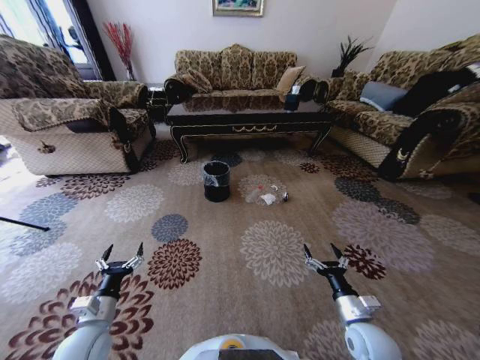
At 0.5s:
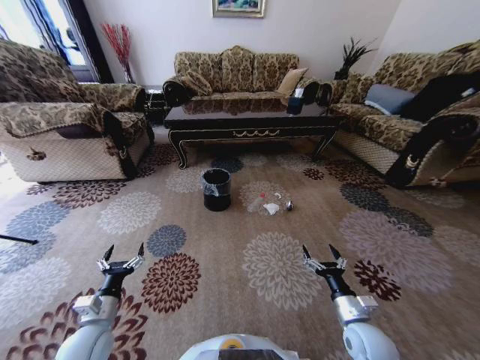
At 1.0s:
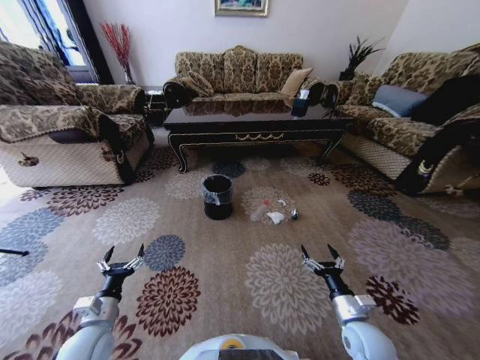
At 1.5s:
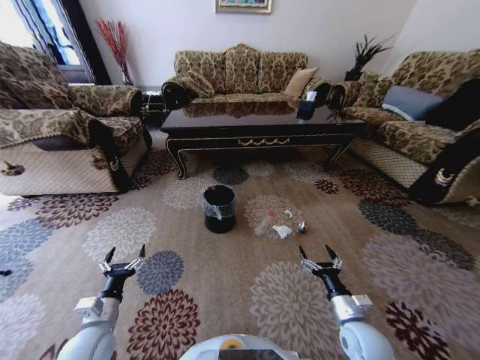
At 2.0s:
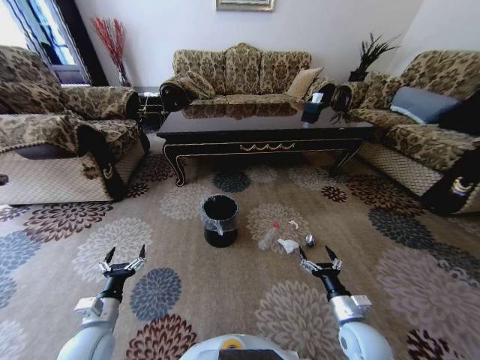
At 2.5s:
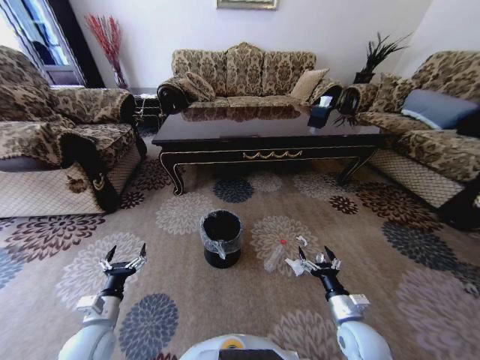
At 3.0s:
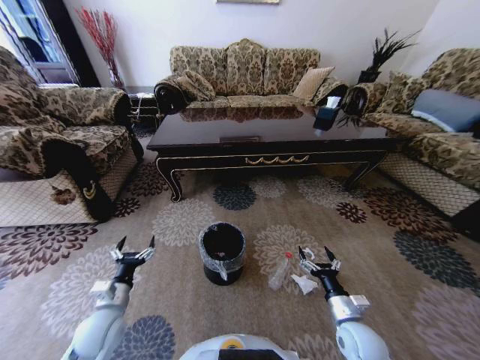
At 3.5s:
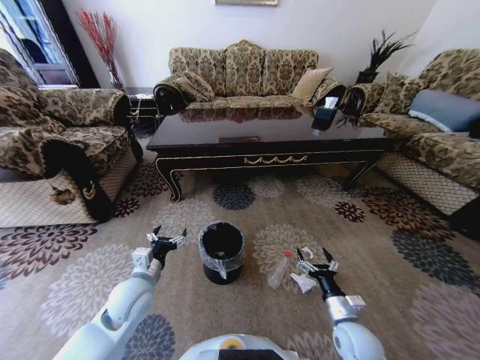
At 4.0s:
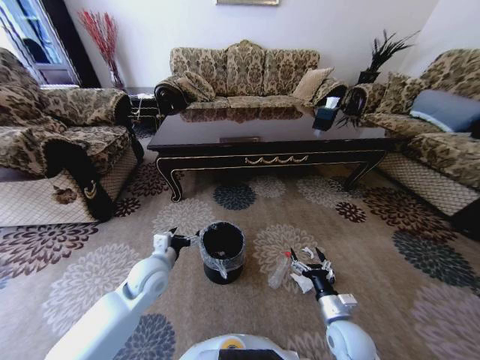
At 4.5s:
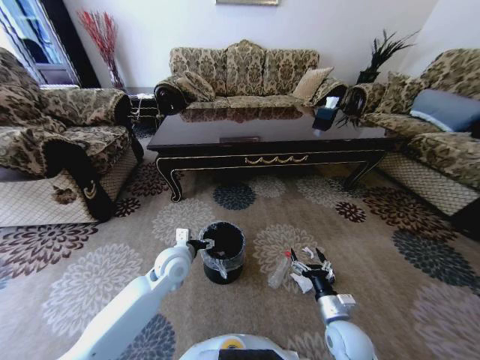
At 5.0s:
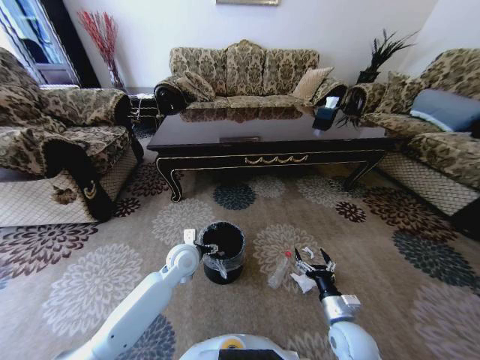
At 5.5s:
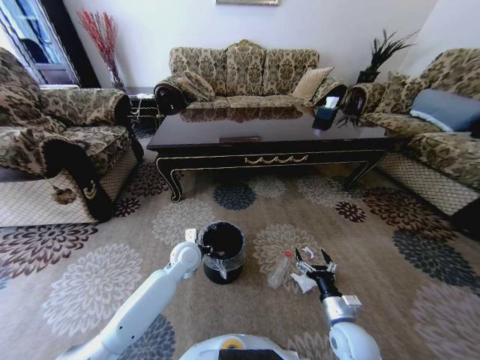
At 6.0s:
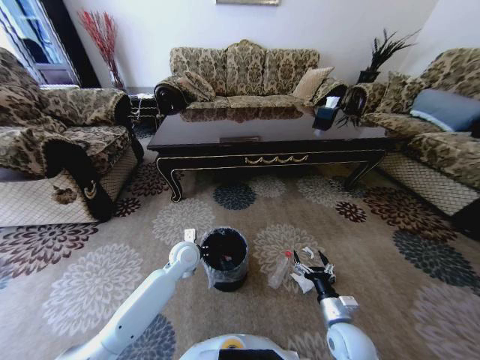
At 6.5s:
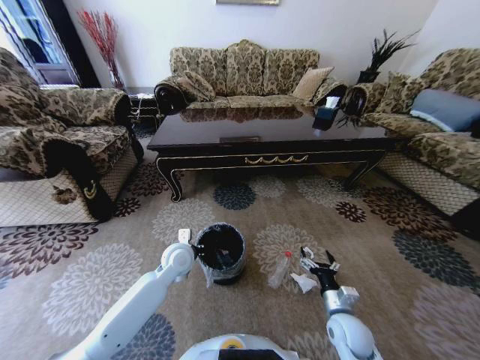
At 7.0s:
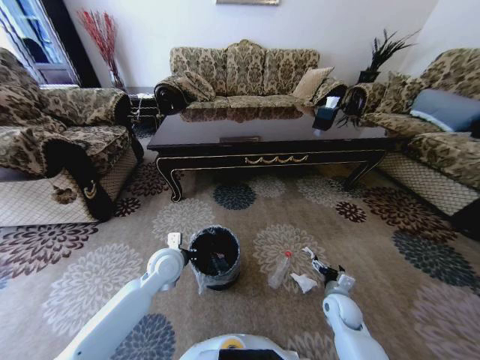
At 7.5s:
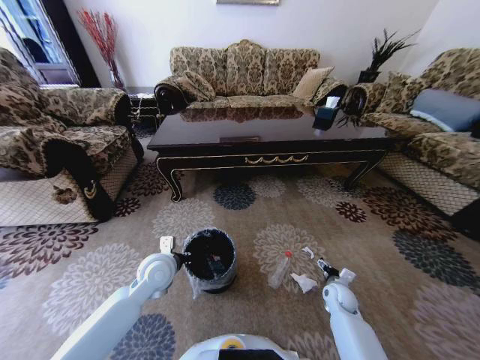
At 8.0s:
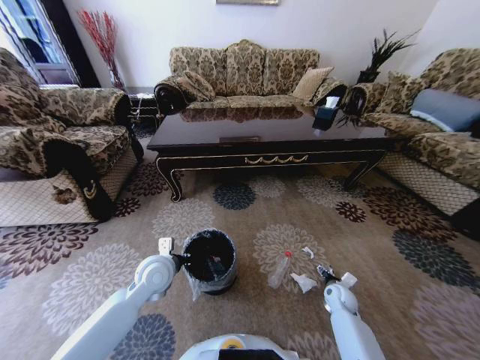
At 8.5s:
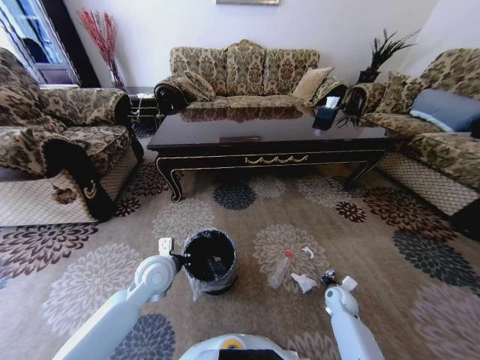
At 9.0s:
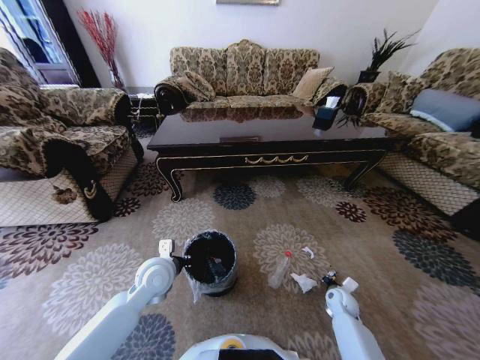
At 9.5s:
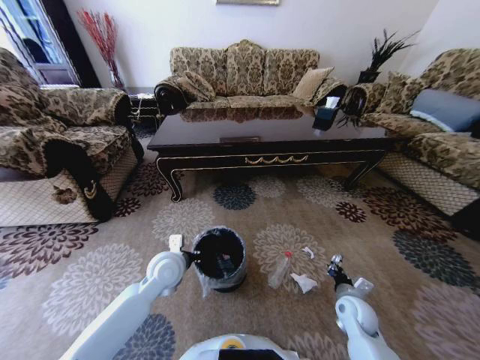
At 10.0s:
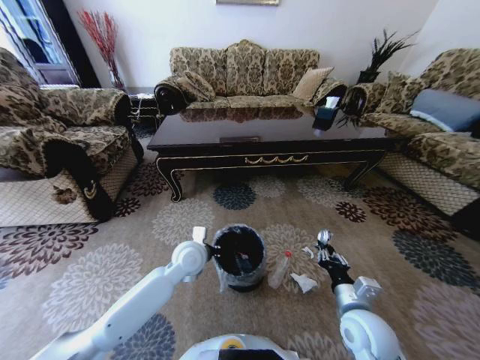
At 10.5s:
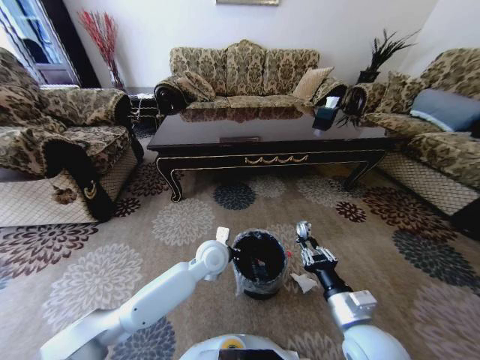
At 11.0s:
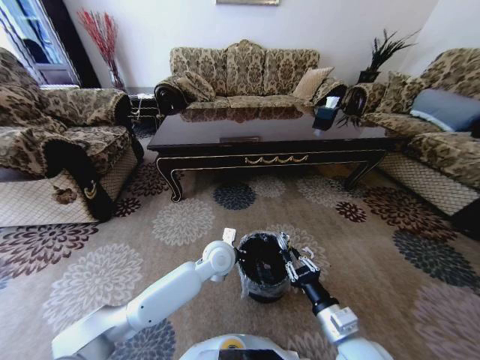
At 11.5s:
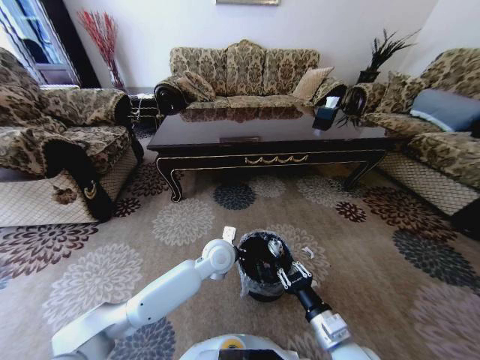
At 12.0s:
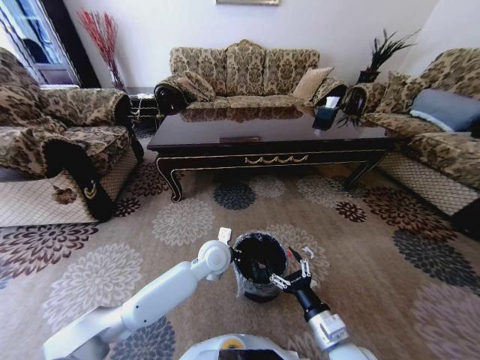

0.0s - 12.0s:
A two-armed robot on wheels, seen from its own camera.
Task of the whole recording: Move to the front of the table and pick up the trash from the floor, then place it into the trash bin.
2.0s - 4.0s: The left gripper shifts about 20 cm forward, to the right and upward.
4.0s - 6.0s: The left gripper shifts approximately 10 cm forward and to the right, and closes.
6.0s - 8.0s: The left gripper shifts roughly 10 cm backward and to the left. The right gripper goes roughly 20 cm forward, to the right and downward.
8.0s - 10.0s: The right gripper travels upward, backward and to the left by approximately 25 cm, and closes. The left gripper moves to the right, about 10 cm.
10.0s - 12.0s: The right gripper is displaced backward and to the left by approximately 10 cm, and opens up; the left gripper travels to the right by approximately 5 cm.

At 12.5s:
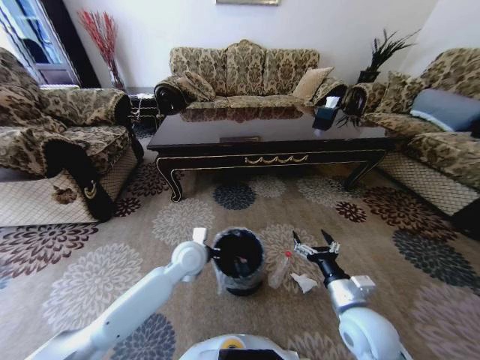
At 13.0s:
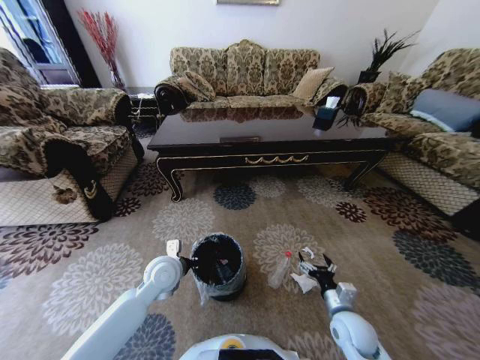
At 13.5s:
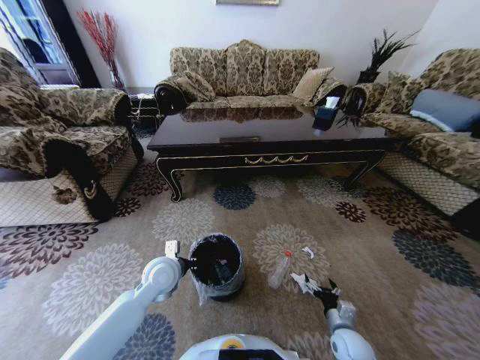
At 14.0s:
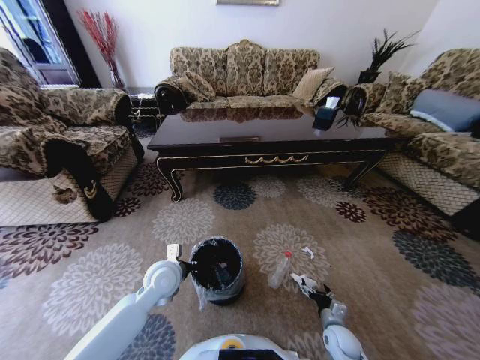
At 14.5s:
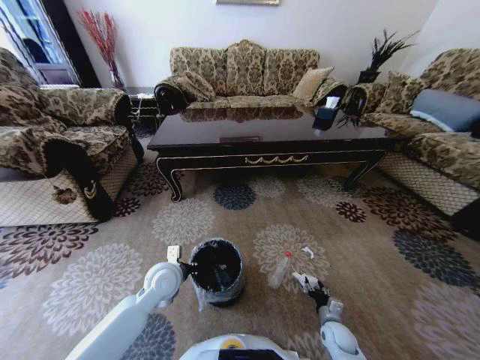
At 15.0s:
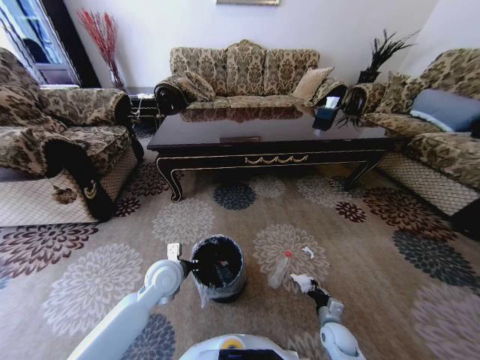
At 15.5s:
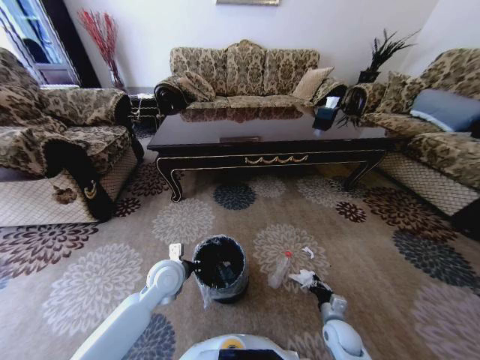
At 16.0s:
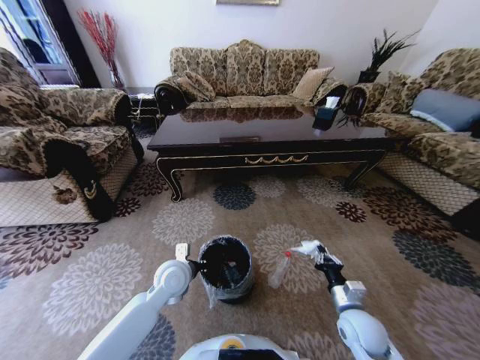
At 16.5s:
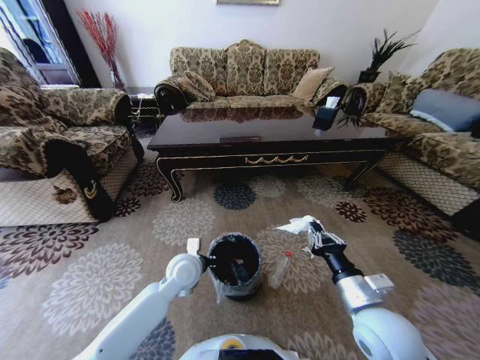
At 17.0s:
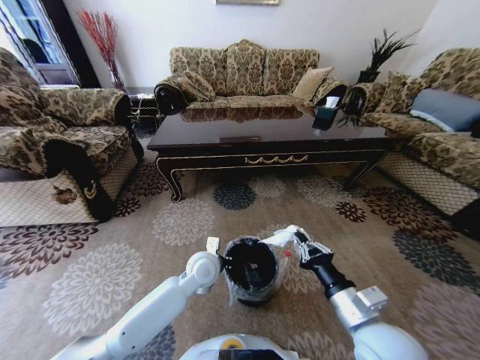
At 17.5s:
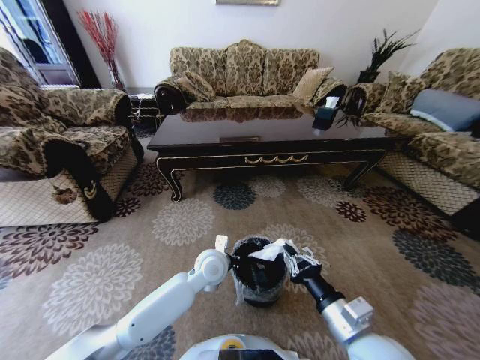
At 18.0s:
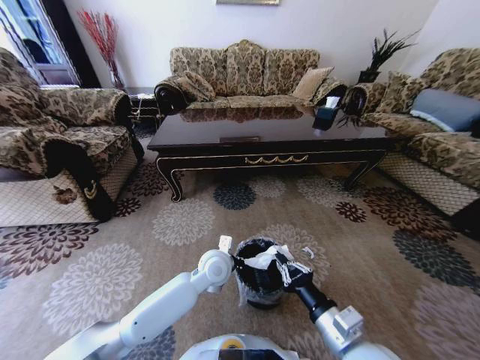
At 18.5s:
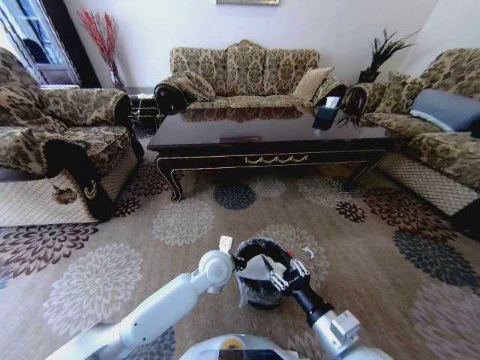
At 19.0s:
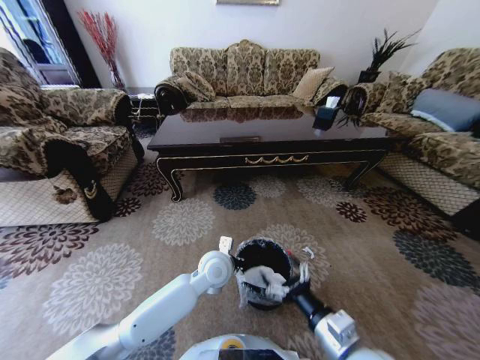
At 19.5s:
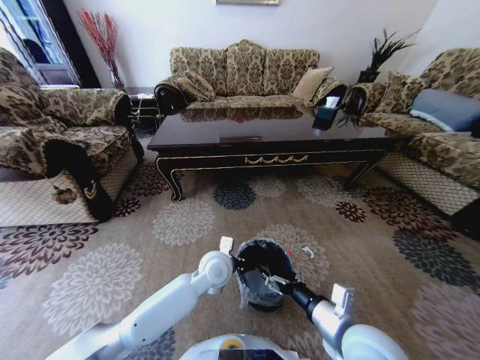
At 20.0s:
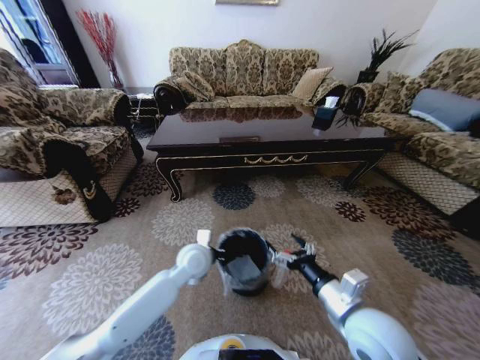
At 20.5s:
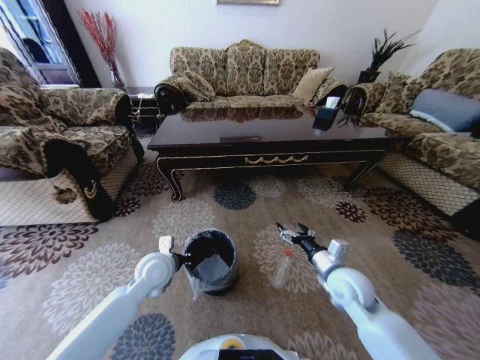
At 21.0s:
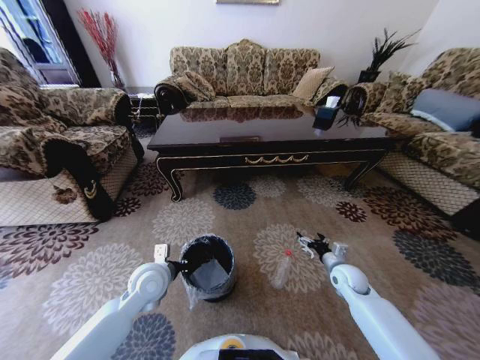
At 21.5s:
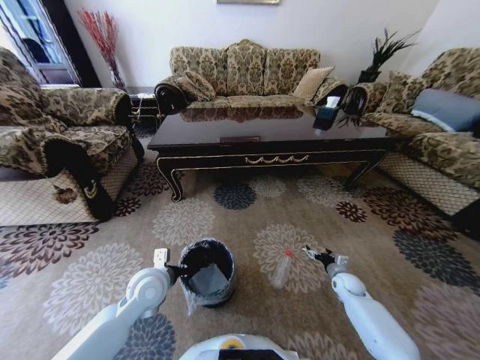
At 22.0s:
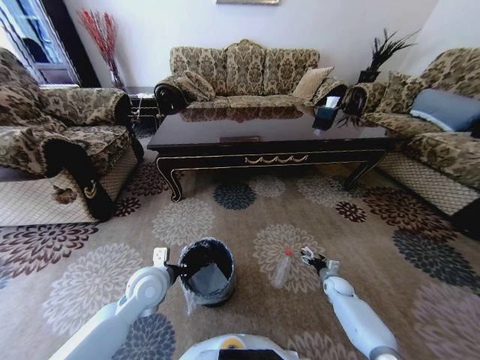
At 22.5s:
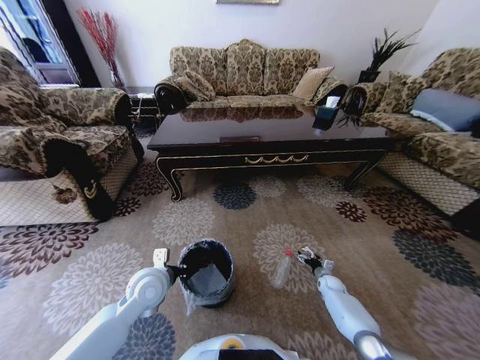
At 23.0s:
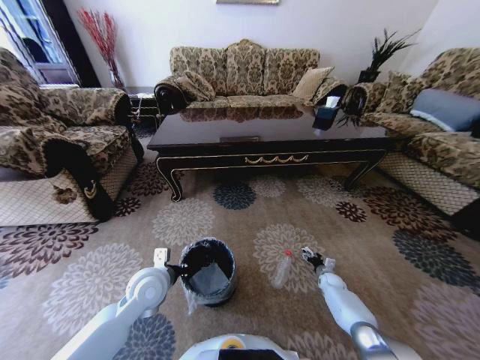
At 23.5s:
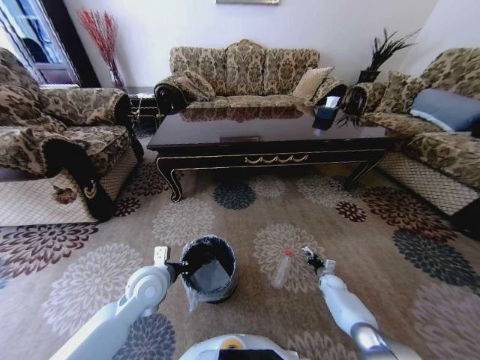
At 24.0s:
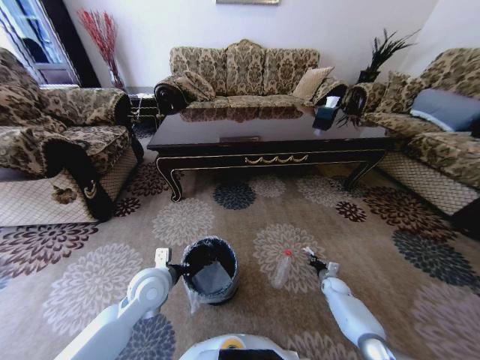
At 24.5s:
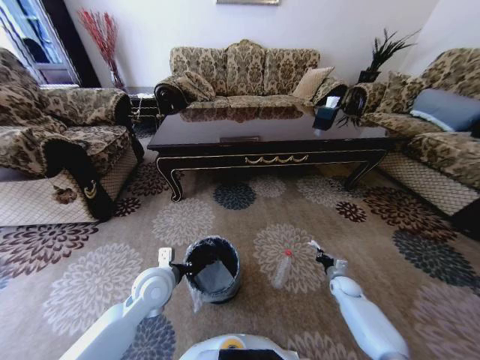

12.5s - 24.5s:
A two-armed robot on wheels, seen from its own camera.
Task of the whole recording: Move to the front of the table and pick up the trash from the floor, then place it into the trash bin.
12.5s - 14.5s: The right gripper heads downward, covering about 25 cm, and closes its fingers; the left gripper heads to the left and backward, covering some 10 cm.
14.5s - 16.5s: The left gripper is displaced to the right by roughly 5 cm, while the right gripper goes some 30 cm upward, and closes.
16.5s - 18.5s: The left gripper heads to the right, covering about 10 cm; the right gripper heads backward and to the left, covering about 10 cm, and opens up.
18.5s - 20.5s: The right gripper travels forward by some 15 cm, and opens; the left gripper shifts roughly 15 cm to the left.
20.5s - 22.5s: The right gripper heads downward and to the right, covering roughly 35 cm.
22.5s - 24.5s: The right gripper ends up approximately 5 cm from where it was, and closes up.

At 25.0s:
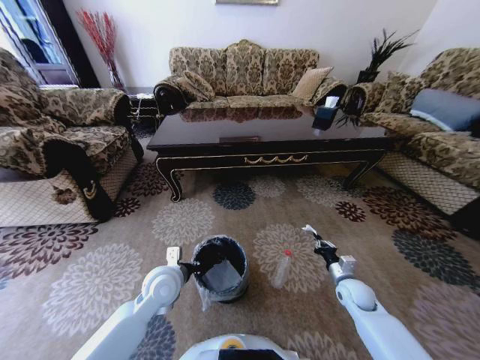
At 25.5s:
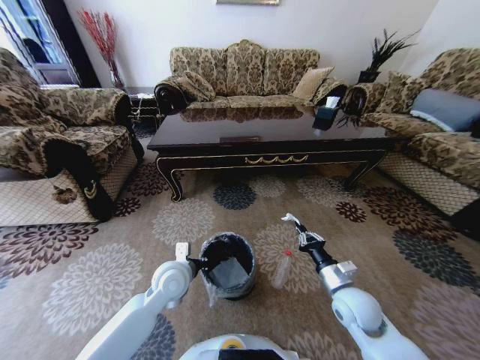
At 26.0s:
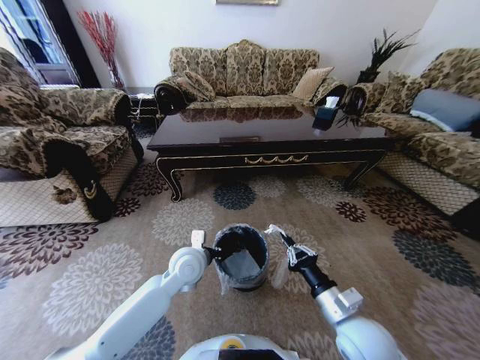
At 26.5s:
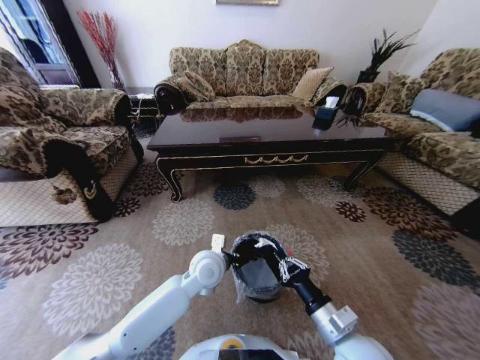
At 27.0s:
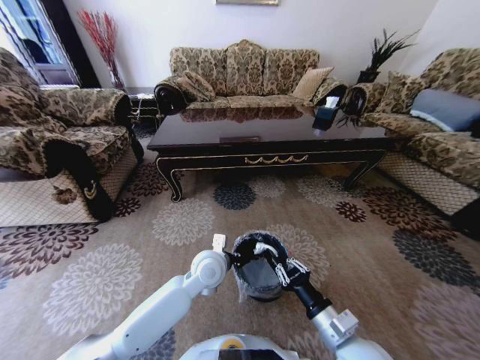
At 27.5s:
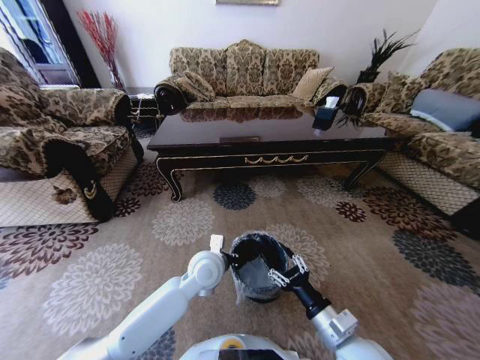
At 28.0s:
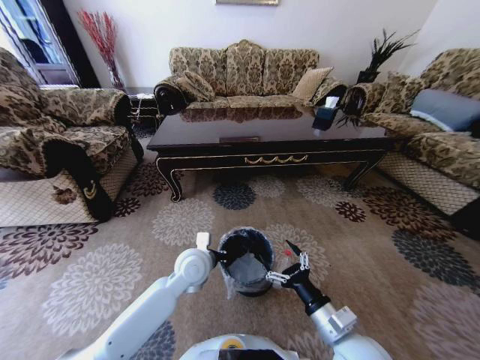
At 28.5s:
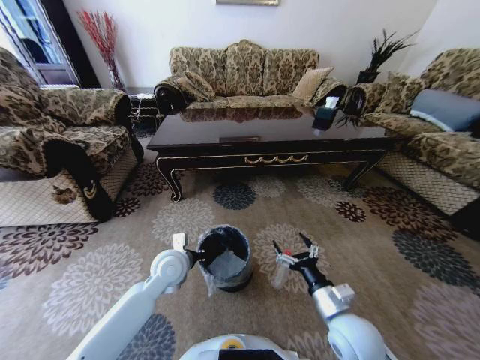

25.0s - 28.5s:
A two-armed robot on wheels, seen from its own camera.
Task of the whole recording: Move to the front of the table and pick up the trash from the floor, then place it into the trash bin.
25.0s - 27.0s: The right gripper is displaced backward, to the left and upward by some 25 cm. Meanwhile the left gripper heads to the right, covering some 10 cm.
27.0s - 28.5s: The right gripper opens its fingers. Meanwhile the left gripper travels to the left by about 10 cm.
